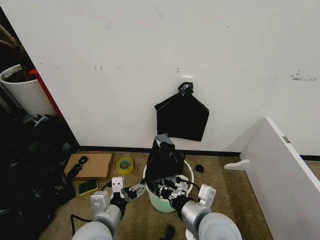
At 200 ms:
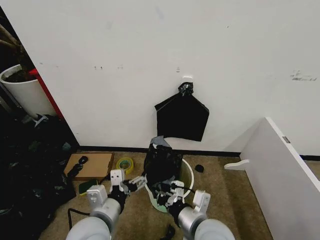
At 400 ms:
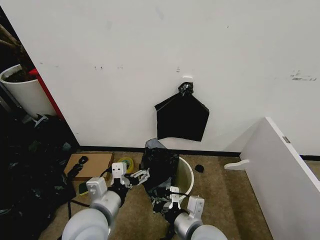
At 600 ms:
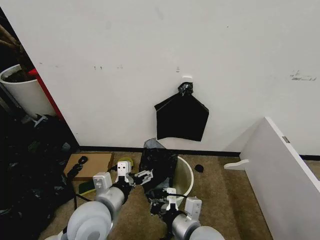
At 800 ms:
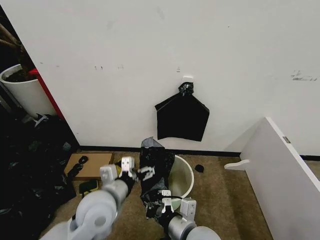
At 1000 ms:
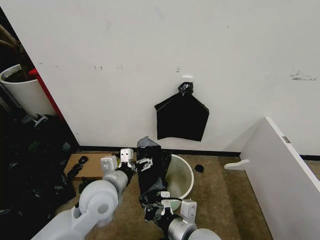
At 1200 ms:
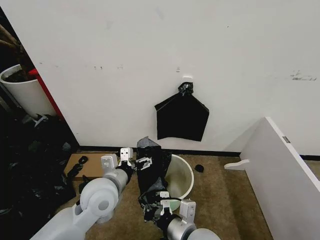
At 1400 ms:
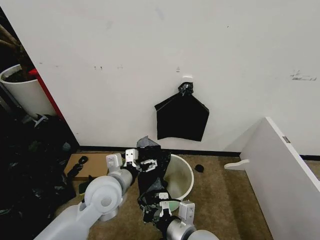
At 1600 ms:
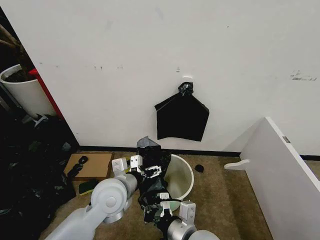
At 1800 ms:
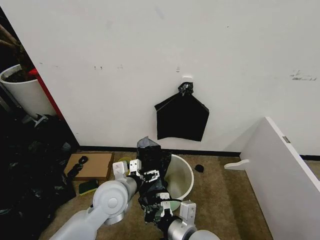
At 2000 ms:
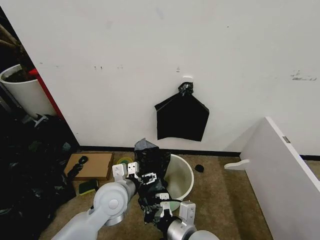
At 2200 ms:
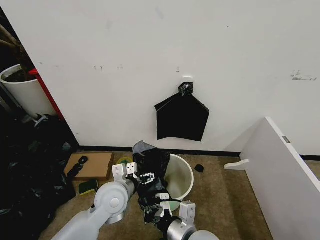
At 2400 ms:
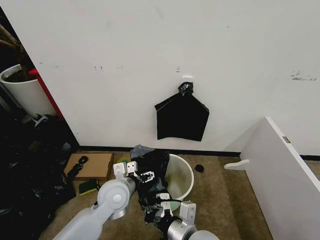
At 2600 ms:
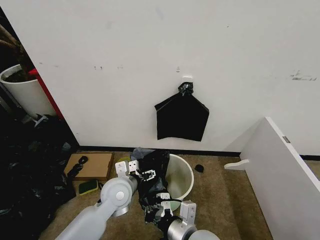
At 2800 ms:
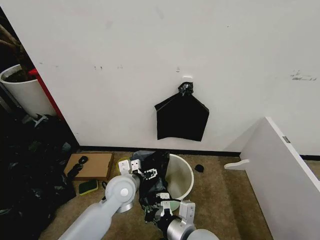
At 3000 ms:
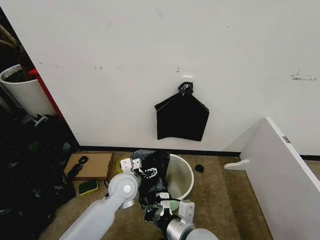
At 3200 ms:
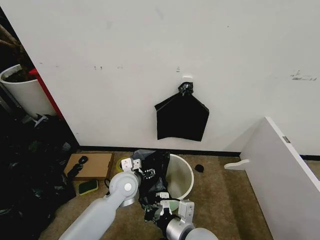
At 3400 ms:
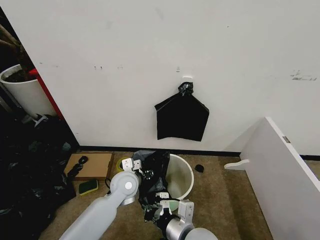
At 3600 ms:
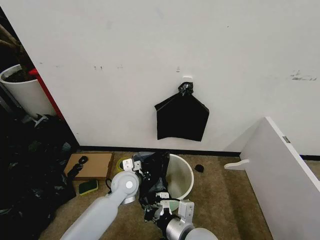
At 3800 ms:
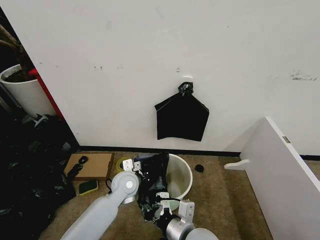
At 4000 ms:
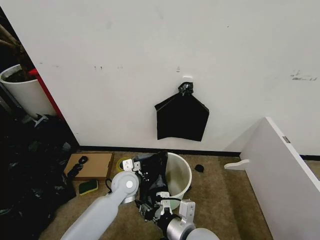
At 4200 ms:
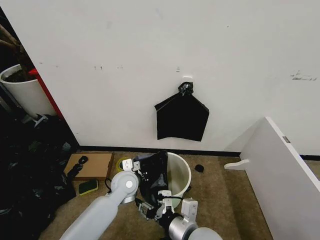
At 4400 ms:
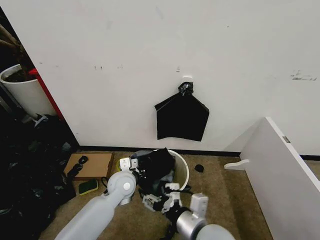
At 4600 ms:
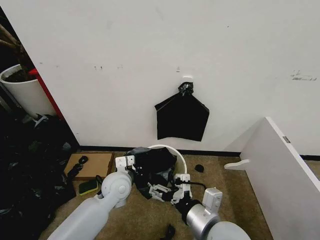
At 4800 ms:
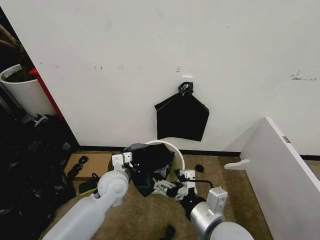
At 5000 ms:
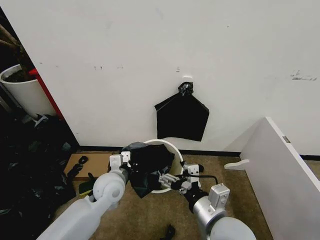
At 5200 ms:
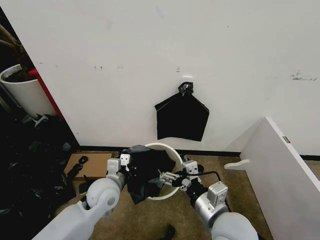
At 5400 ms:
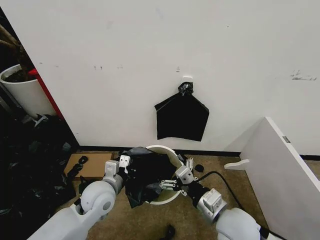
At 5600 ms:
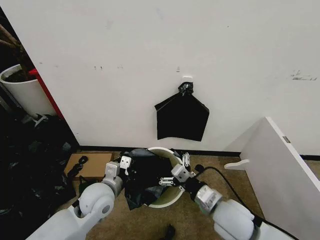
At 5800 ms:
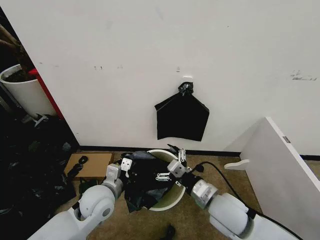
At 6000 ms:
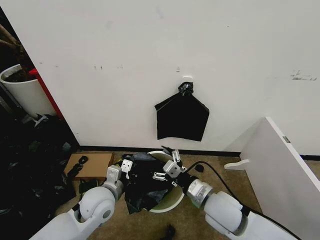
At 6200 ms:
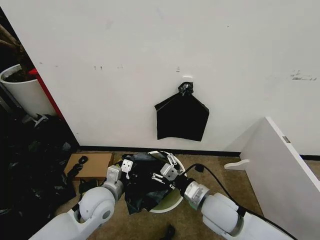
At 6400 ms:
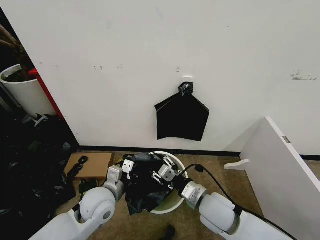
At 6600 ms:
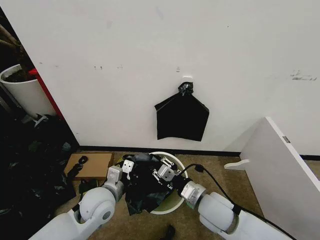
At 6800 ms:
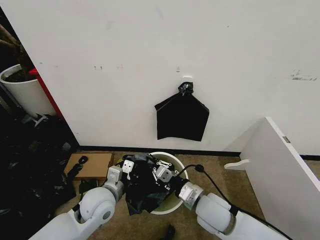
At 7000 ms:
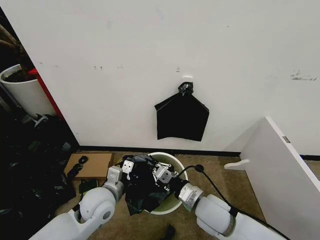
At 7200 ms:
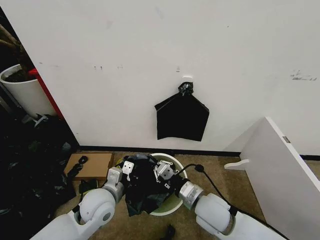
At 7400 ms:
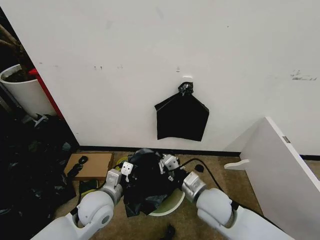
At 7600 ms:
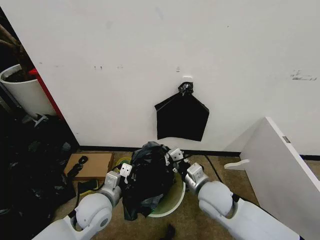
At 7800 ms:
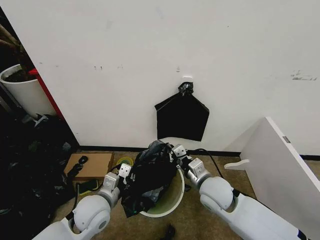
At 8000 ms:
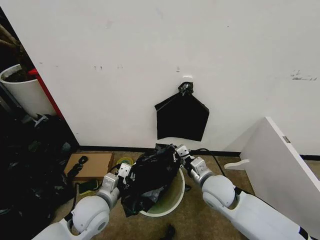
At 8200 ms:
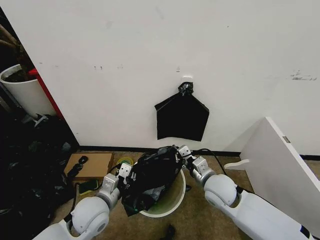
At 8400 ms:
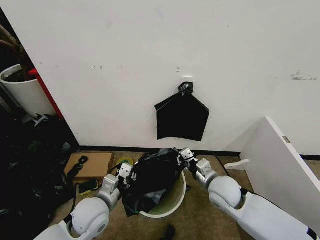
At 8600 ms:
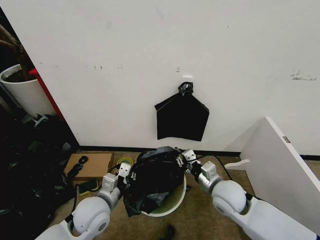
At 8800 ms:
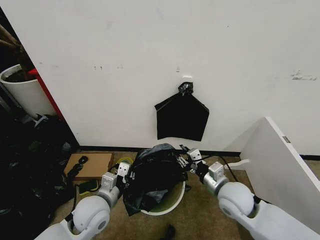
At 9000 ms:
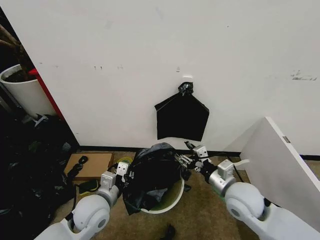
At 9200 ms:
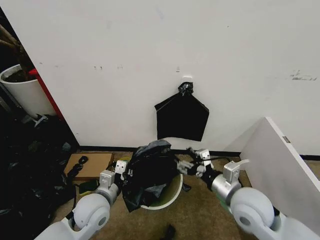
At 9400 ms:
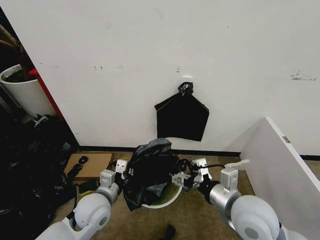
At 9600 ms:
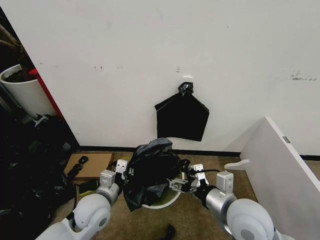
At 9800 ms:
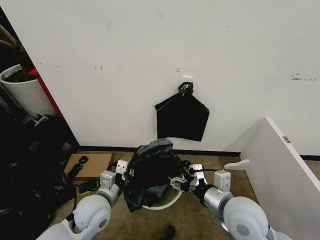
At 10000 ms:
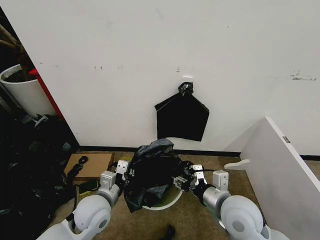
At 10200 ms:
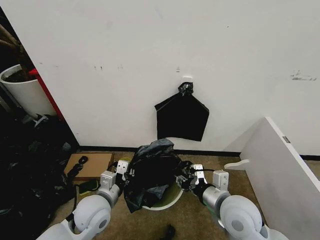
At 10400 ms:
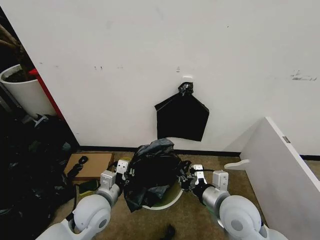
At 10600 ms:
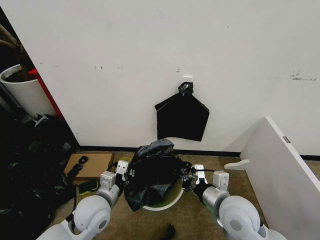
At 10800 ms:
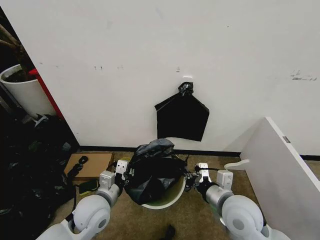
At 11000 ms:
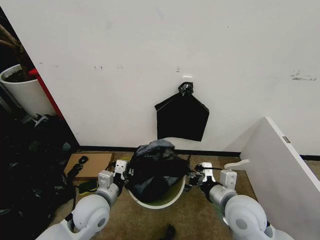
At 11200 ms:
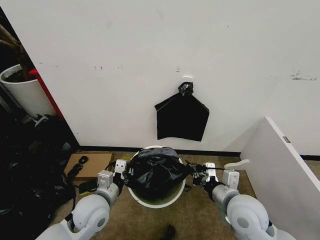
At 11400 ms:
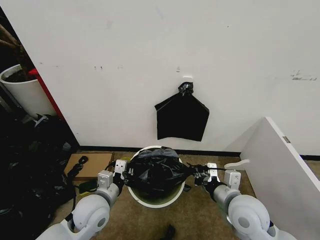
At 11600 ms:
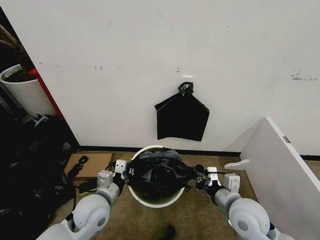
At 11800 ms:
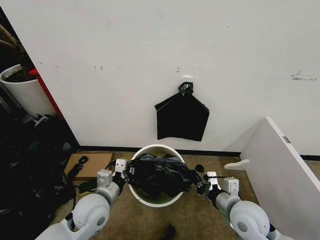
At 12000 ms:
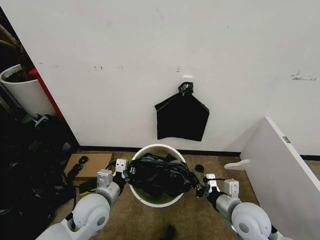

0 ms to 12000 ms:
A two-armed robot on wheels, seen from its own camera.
Task of the whole recording: Place the garbage bag over the trash bin.
0 ms to 1600 ms: The left gripper is displaced forward by some 10 cm, while the right gripper changes place by approximately 5 cm.
1600 ms to 3000 ms: The left gripper heads downward and forward, covering approximately 10 cm.
3000 ms to 4400 ms: The right gripper opens its fingers, while the left gripper closes up.
4400 ms to 6000 ms: The left gripper travels backward and to the left by some 10 cm; the right gripper is displaced forward by roughly 10 cm.
6000 ms to 7600 ms: The right gripper closes up.
7600 ms to 9000 ms: The right gripper heads to the right, covering approximately 10 cm, and opens its fingers.
9000 ms to 10400 ms: The right gripper ends up some 5 cm from where it was, and closes up.
10400 ms to 12000 ms: The right gripper shifts about 10 cm downward and to the right.

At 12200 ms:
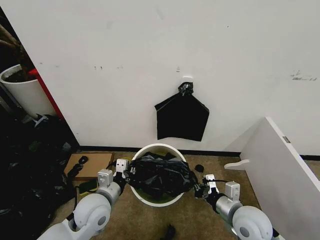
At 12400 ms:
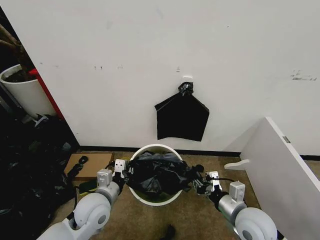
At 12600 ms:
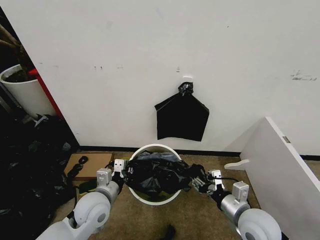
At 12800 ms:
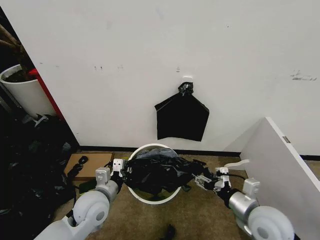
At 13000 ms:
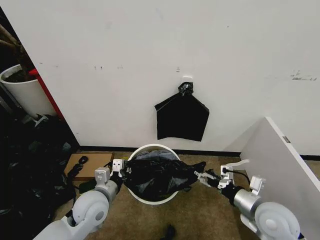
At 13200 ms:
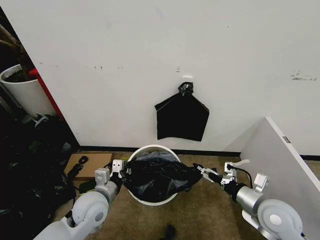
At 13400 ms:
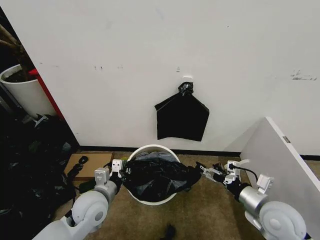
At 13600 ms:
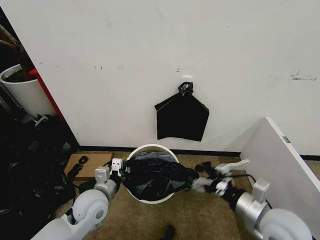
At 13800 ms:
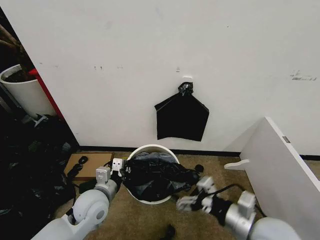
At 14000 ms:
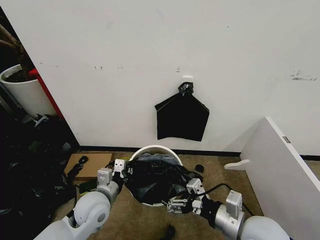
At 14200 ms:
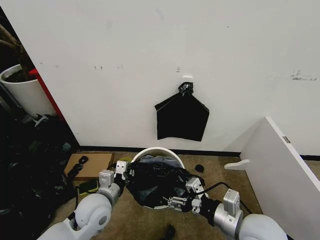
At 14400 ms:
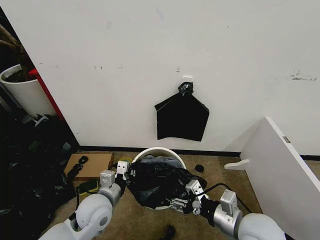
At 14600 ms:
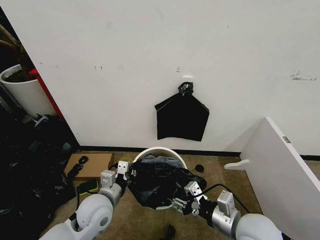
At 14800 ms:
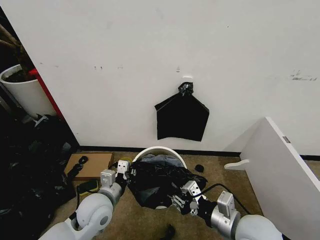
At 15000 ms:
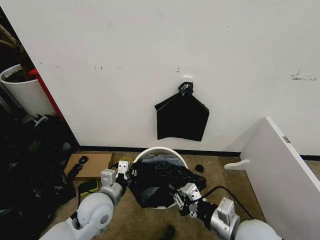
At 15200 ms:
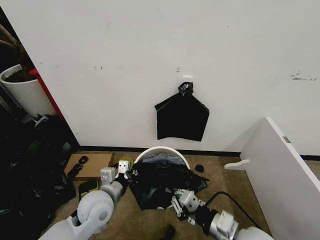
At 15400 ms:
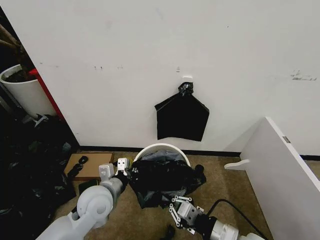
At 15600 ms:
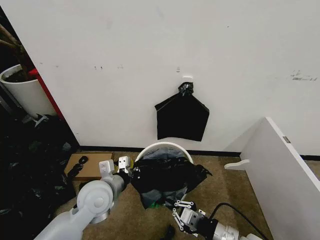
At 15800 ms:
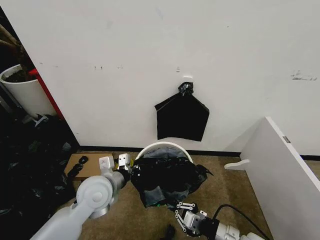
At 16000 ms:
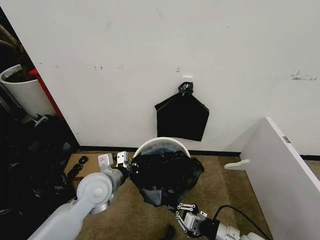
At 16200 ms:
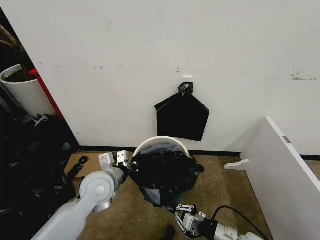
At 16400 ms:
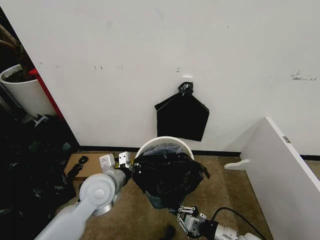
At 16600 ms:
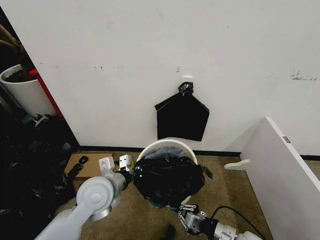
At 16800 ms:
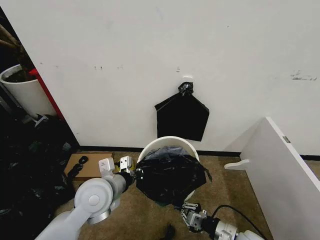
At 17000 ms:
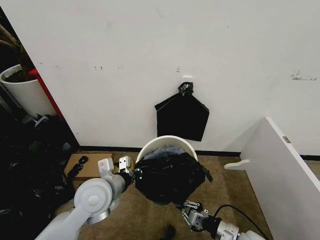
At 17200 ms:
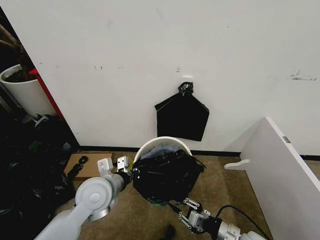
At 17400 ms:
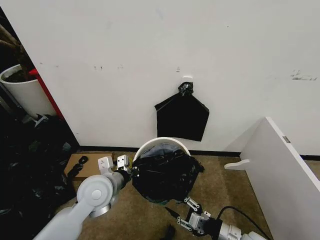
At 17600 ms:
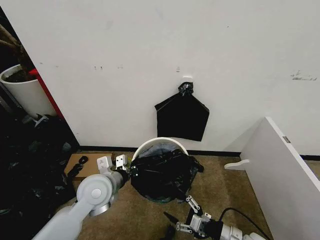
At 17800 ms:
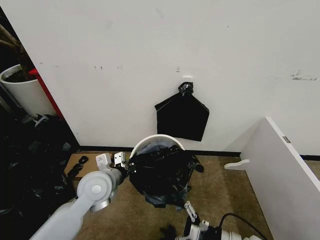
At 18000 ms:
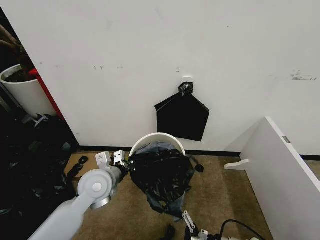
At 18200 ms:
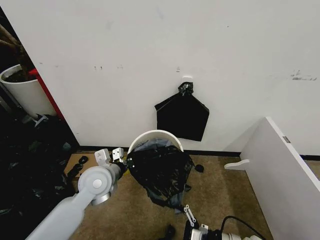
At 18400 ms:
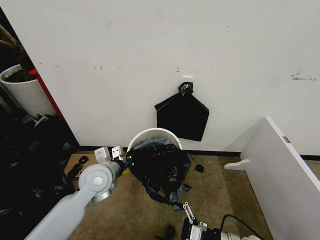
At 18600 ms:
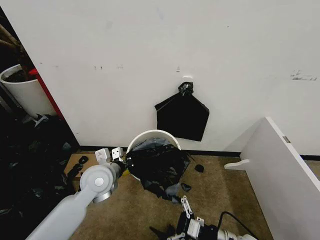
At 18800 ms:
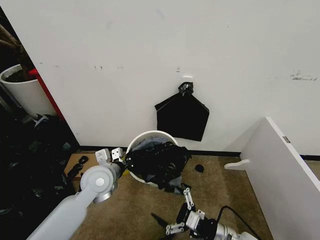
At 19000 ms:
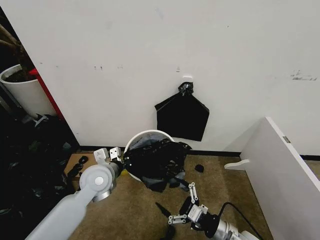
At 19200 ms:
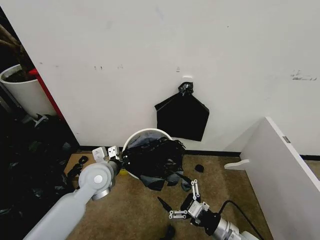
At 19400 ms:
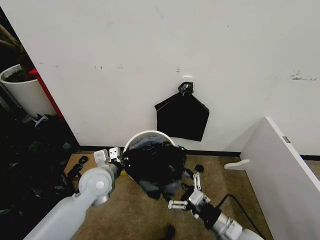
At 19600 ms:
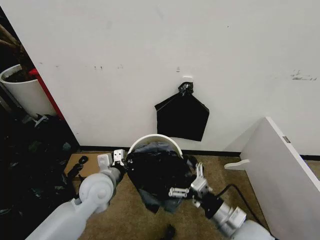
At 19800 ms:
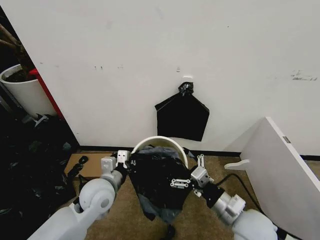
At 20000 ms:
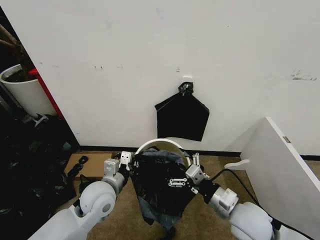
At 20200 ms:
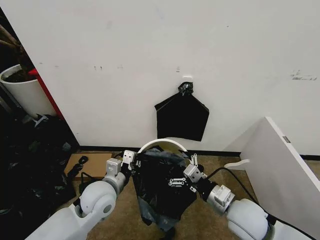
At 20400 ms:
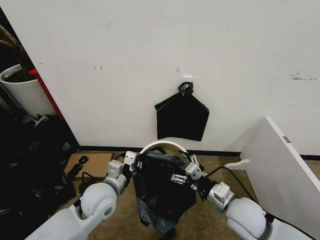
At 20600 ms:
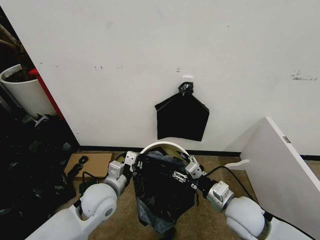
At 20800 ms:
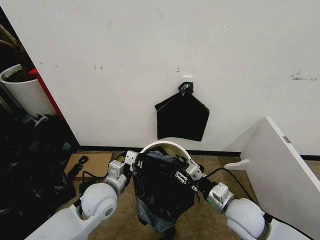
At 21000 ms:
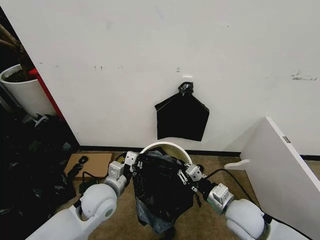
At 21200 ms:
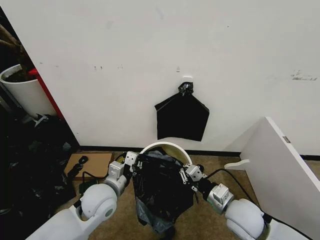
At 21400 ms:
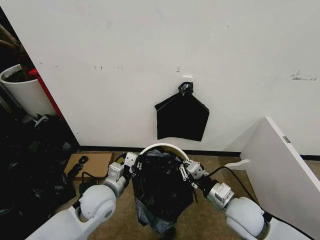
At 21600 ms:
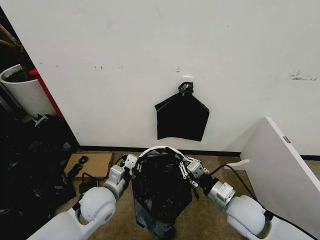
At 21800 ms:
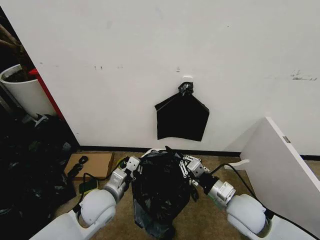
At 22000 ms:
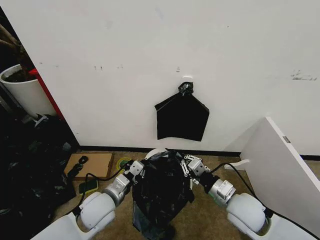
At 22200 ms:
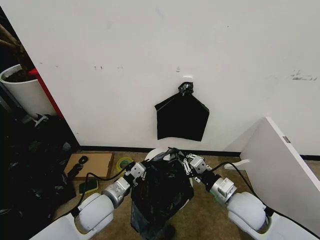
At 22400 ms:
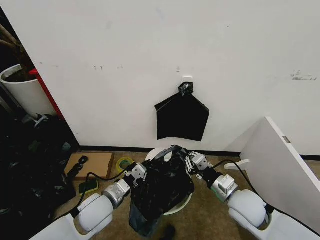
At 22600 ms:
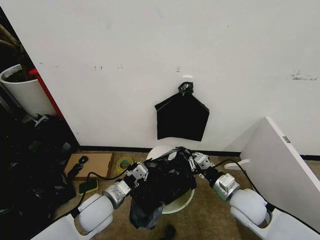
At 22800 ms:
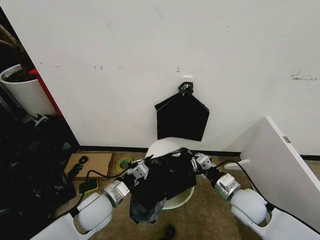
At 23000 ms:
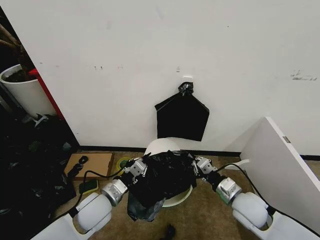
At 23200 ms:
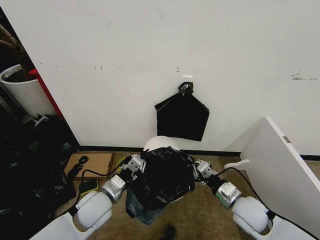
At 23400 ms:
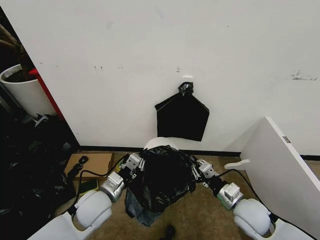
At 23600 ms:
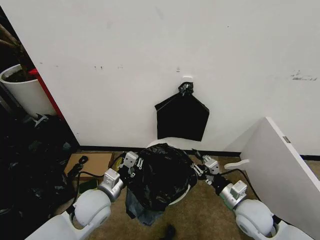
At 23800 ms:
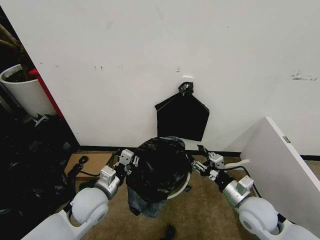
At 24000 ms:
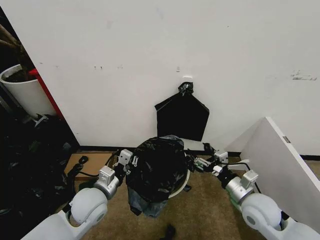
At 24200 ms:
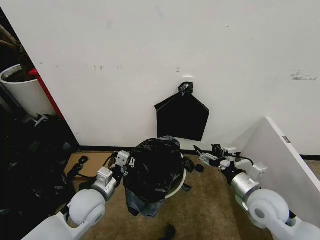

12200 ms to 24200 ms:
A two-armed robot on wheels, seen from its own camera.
Task of the whole recording: Place the garbage bag over the trash bin.
12200 ms to 13800 ms: The right gripper is displaced upward and backward by approximately 10 cm, and opens up.
13800 ms to 15200 ms: The right gripper closes up.
15200 ms to 16600 ms: The left gripper goes roughly 5 cm upward; the right gripper shifts approximately 10 cm downward.
16600 ms to 18200 ms: The right gripper opens.
18200 ms to 19800 ms: The right gripper goes roughly 10 cm upward.
19800 ms to 21200 ms: The right gripper ends up about 5 cm from where it was, and closes.
22600 ms to 24200 ms: The right gripper opens up.
